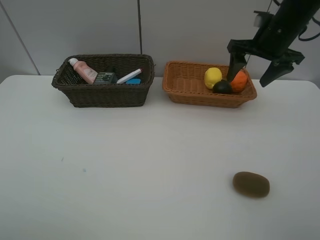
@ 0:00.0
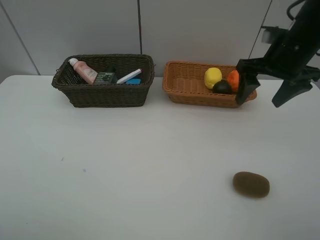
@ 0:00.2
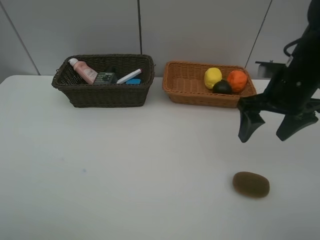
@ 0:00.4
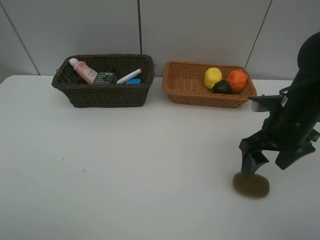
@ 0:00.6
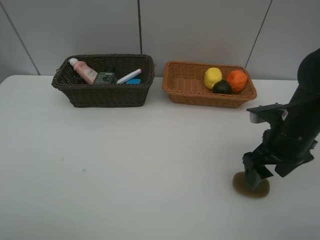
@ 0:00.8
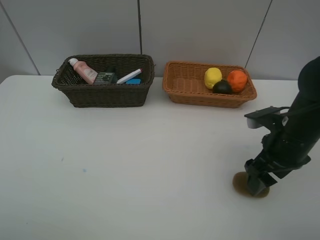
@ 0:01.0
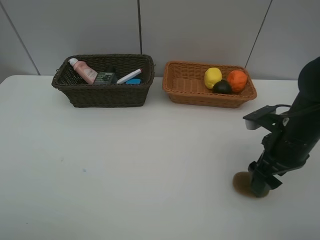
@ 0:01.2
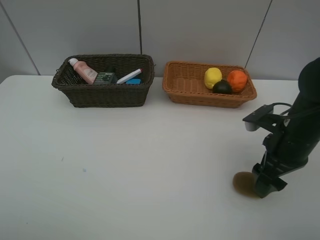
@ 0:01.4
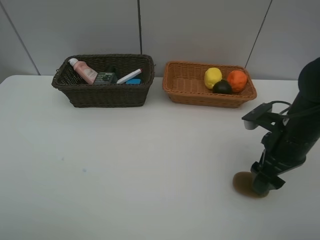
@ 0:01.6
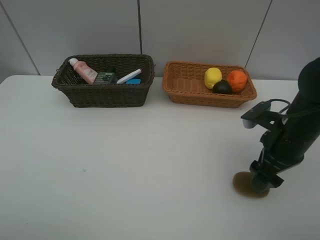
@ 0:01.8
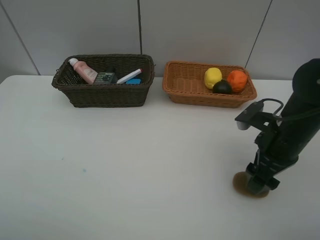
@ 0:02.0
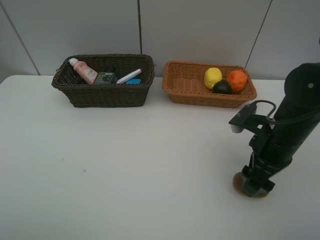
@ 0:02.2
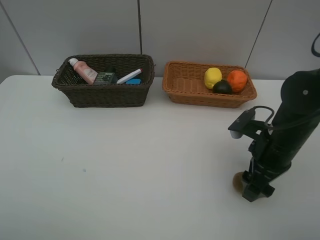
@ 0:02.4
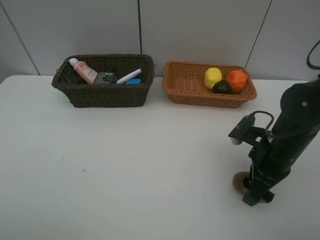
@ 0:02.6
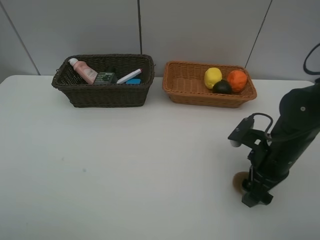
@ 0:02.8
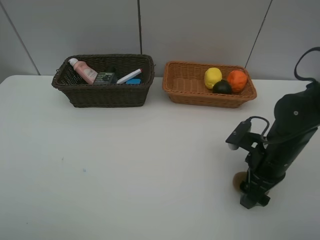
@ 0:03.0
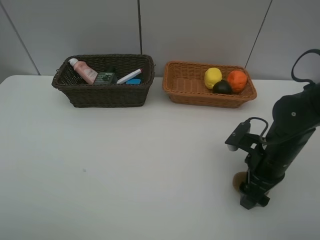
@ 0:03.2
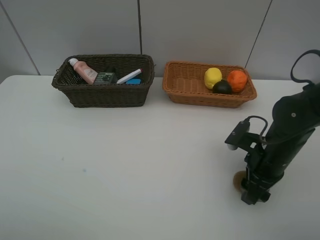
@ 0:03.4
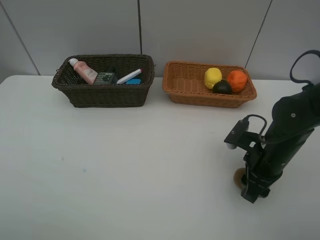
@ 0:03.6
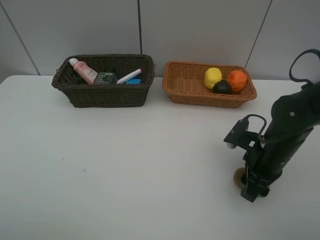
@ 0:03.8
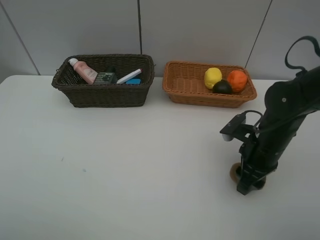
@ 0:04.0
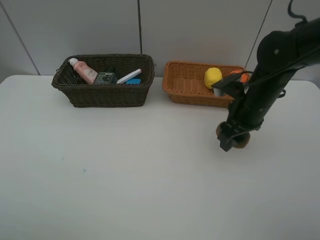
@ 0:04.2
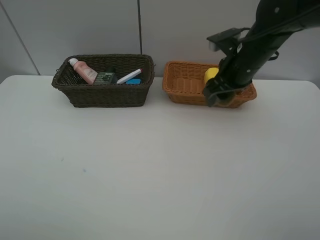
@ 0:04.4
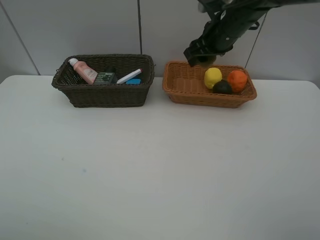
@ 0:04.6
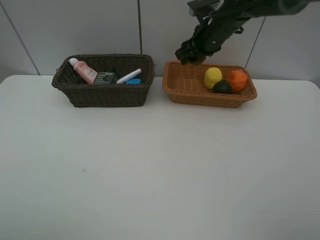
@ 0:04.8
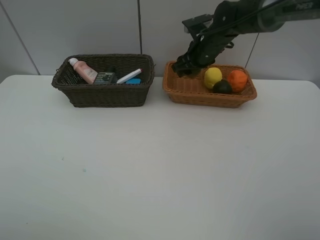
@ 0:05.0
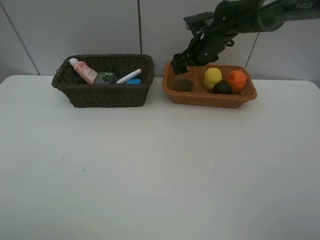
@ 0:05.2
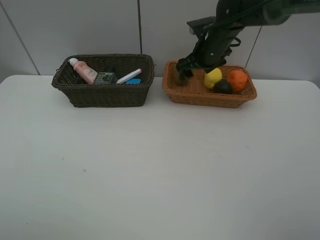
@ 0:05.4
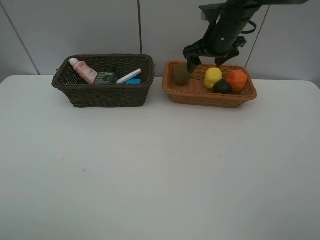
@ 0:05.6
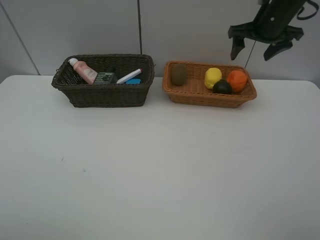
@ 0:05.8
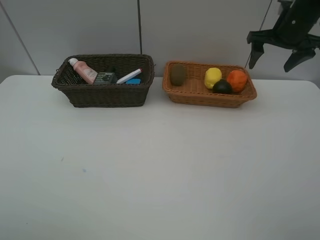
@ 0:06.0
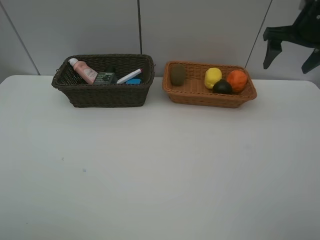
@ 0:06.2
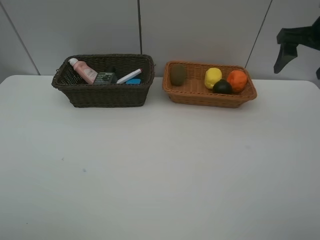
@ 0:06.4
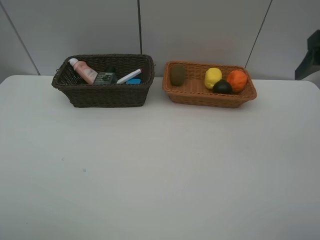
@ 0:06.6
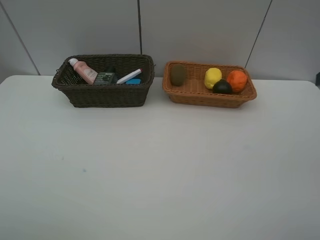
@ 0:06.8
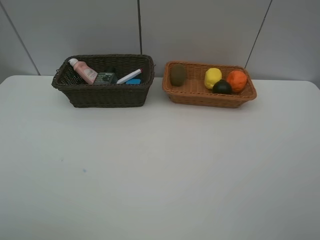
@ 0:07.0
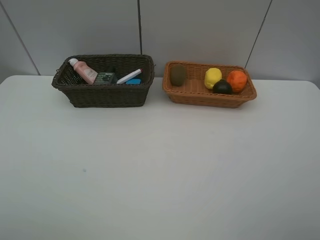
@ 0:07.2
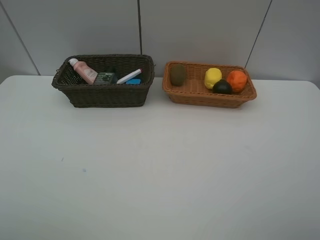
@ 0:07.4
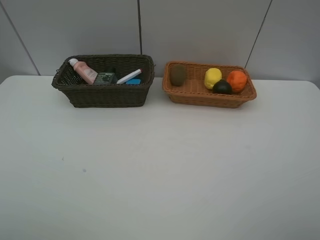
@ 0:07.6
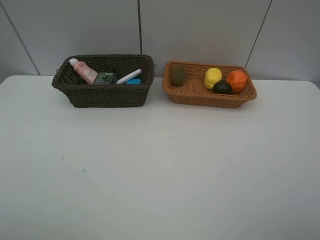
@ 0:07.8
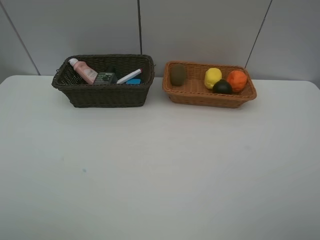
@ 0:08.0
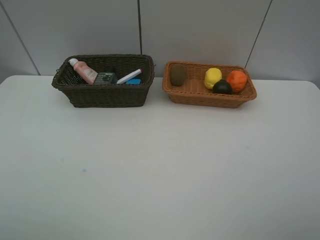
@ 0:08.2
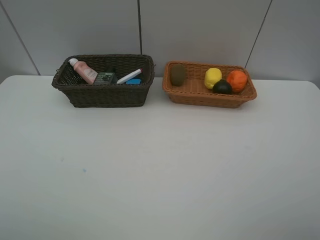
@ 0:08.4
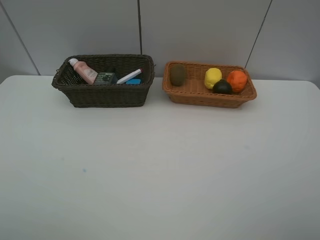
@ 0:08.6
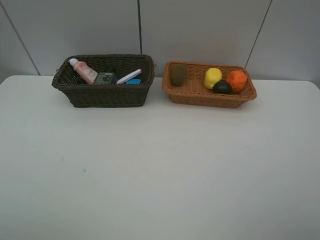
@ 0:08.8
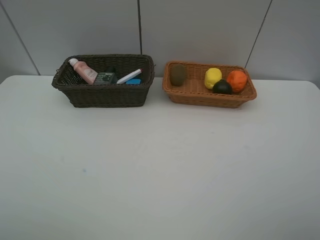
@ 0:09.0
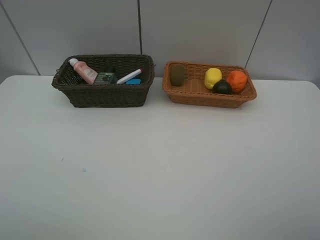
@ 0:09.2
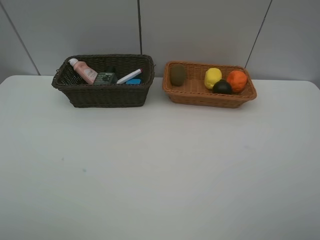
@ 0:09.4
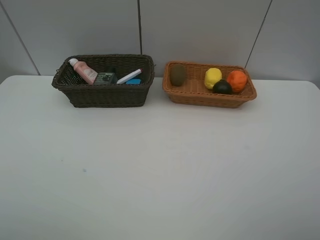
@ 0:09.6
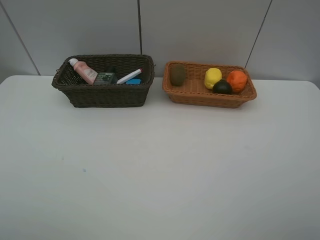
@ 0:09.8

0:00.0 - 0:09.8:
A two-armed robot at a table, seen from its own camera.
Task of the whole recording: Place multiple objects separately in different baskets.
Step, 0:00.0 - 0:04.0: Pick up kiwi with right gripper.
Step, 0:04.2 - 0:05.2: Place the kiwi in the light basket with right gripper.
0:00.0 - 0:01.4: The right gripper shifts approximately 20 cm backward and downward.
0:01.4 - 0:02.8: The grippers make only small movements.
0:02.8 - 0:04.2: The right gripper is displaced forward and upward by some 10 cm, and closes up.
0:04.2 - 0:05.6: The right gripper travels forward and upward by roughly 15 cm, and opens.
0:05.6 - 0:07.0: The right gripper travels backward and to the right by some 40 cm.
0:08.4 - 0:09.8: Both grippers stay about where they are.

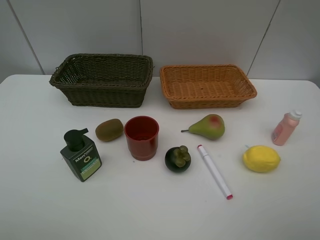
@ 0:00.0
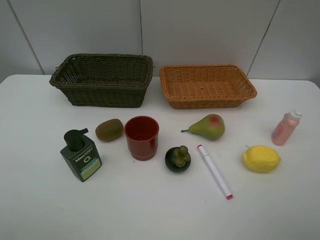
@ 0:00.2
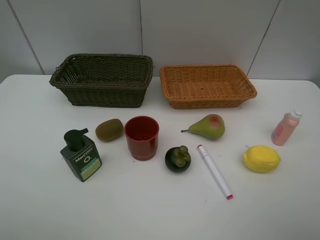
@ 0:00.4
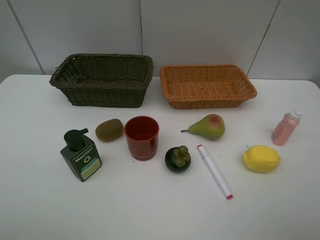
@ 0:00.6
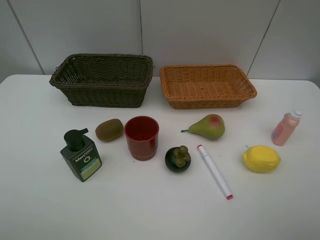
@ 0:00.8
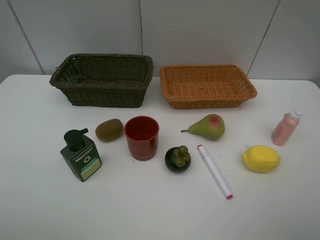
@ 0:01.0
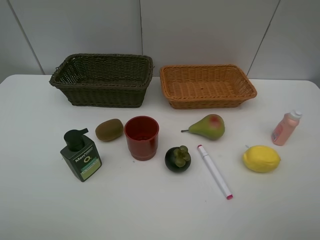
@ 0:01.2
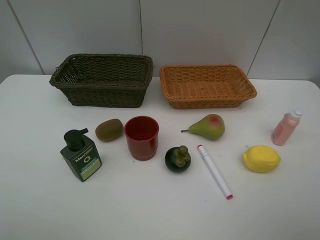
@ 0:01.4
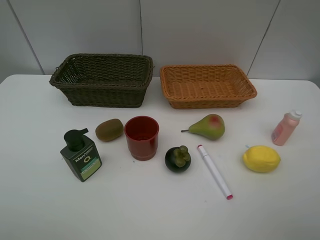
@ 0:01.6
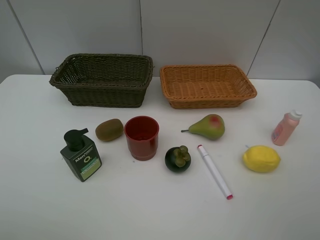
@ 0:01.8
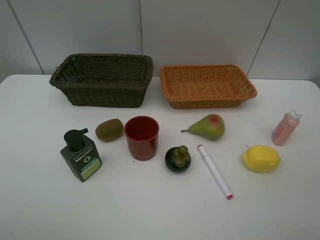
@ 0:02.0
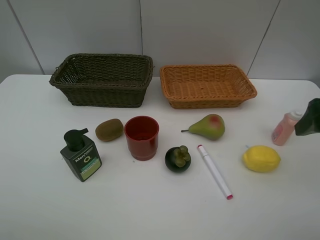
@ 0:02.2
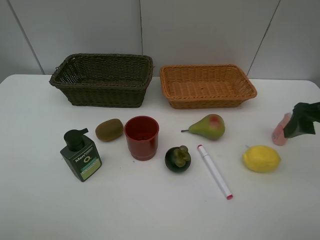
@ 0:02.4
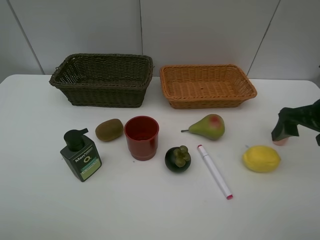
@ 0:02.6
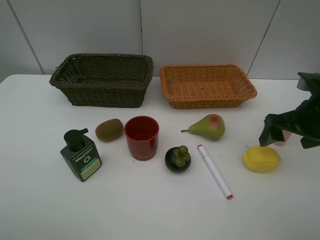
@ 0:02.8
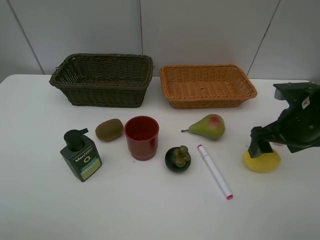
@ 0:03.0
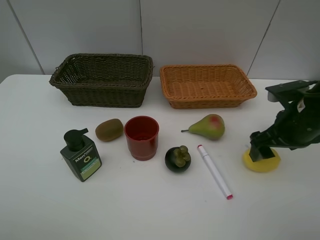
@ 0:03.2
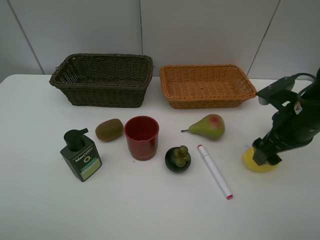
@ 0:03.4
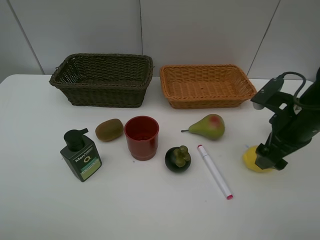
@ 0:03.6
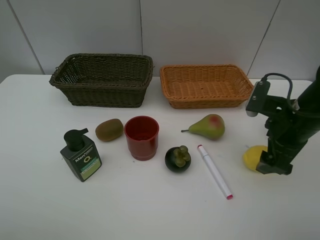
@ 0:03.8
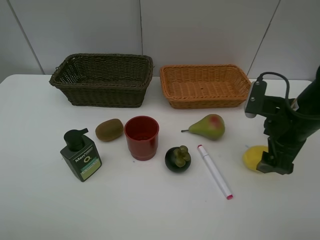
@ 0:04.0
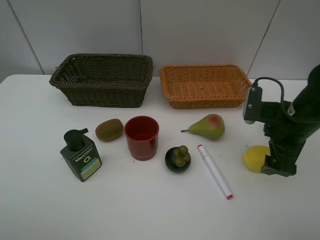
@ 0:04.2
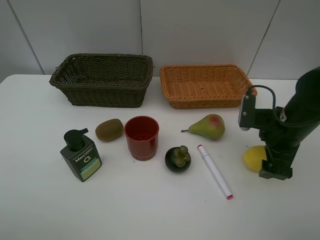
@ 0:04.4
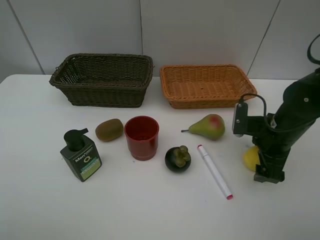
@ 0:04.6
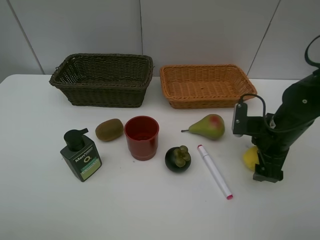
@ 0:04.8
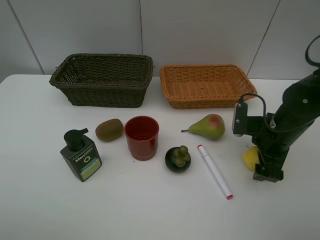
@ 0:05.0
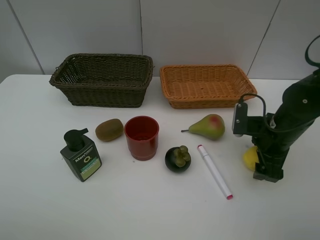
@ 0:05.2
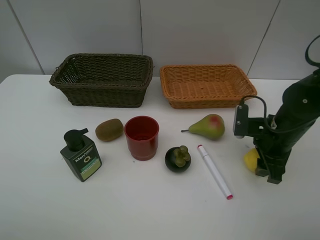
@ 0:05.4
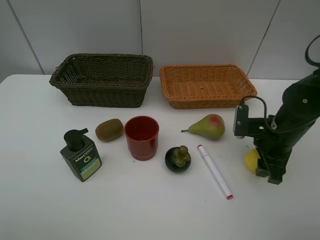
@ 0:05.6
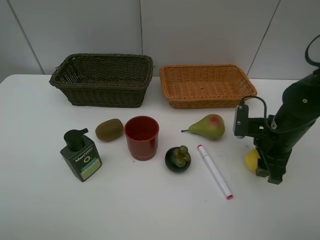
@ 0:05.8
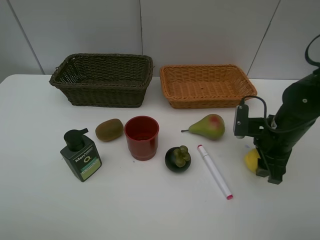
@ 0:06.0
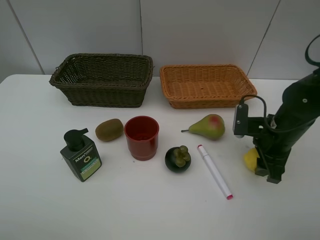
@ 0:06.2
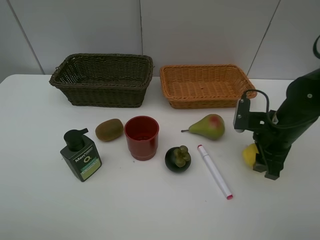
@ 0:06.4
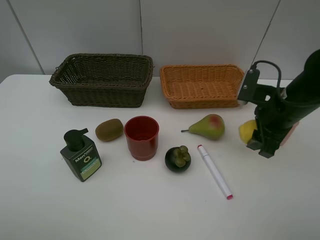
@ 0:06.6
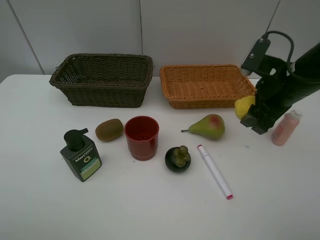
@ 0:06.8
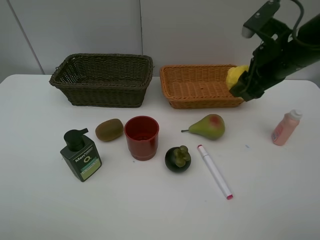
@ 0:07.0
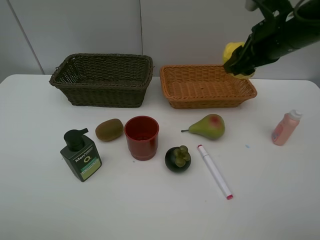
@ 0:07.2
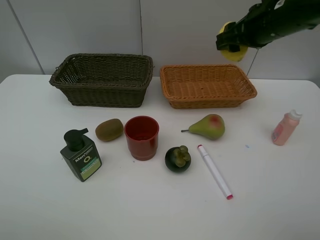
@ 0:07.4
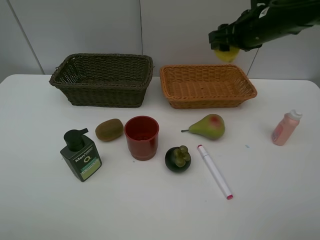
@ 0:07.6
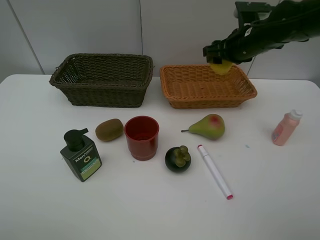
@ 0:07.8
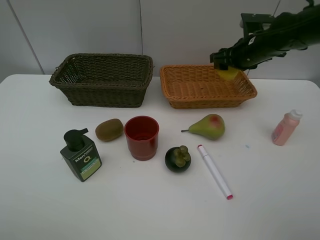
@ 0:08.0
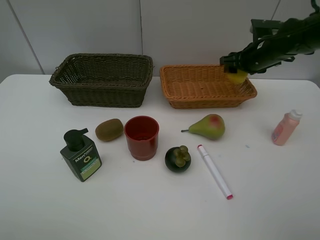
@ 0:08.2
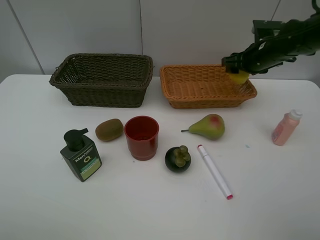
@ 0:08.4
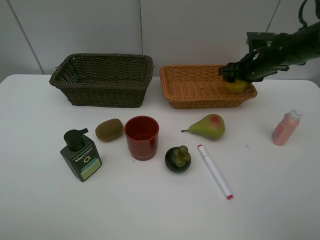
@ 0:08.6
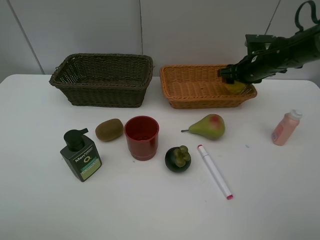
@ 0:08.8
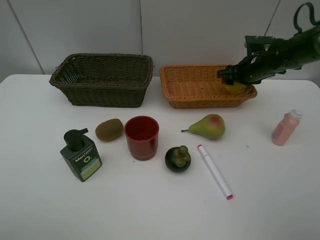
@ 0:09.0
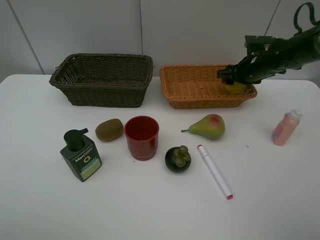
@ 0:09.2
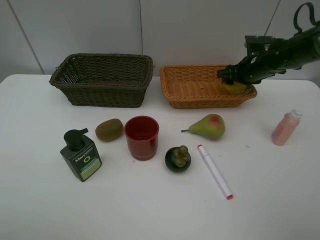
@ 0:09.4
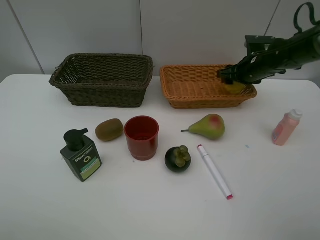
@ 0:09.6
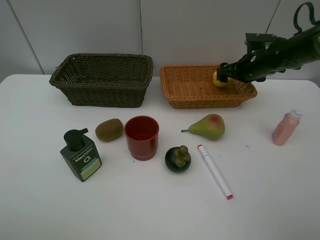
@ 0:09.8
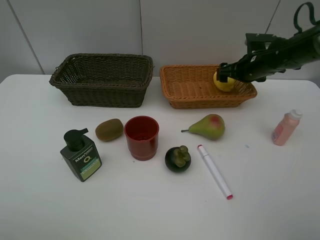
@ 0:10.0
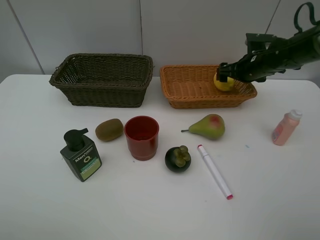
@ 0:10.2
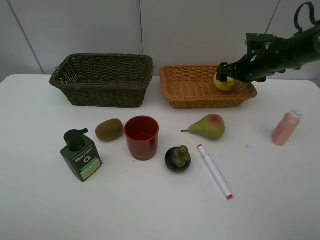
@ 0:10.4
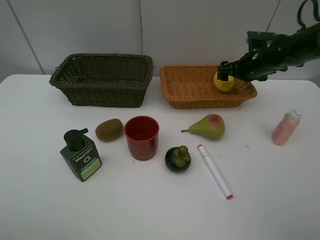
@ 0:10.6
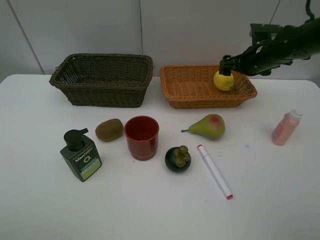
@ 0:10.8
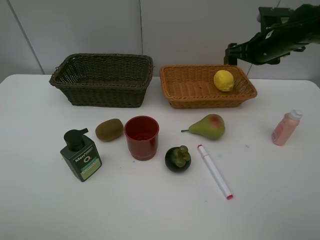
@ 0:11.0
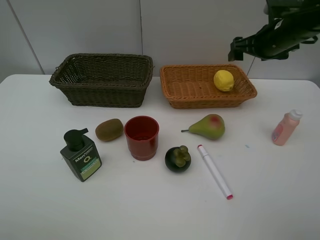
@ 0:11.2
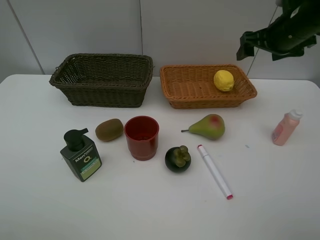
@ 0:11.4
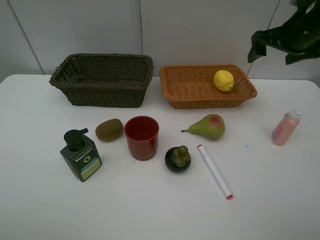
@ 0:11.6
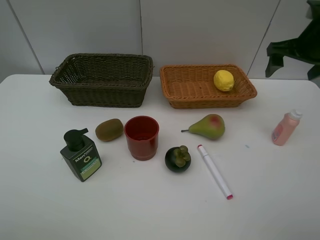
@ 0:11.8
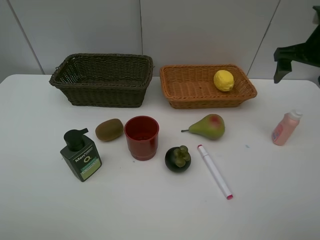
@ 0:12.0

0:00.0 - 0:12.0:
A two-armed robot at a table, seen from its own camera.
Task of the whole recording: Place multiple objects separately in different baskets.
Step, 0:00.0 - 0:06.4: Pick up the lemon with right gripper.
Step, 0:06.6 - 0:10.8: Place the lemon in the light basket with right gripper.
0:01.6 - 0:03.0: The right gripper goes some 20 cm forward and downward.
0:04.4 - 0:06.0: The right gripper closes its fingers.
0:06.0 - 0:07.6: The right gripper heads upward and forward, covering approximately 20 cm.
0:07.6 - 0:09.0: The right gripper shifts about 15 cm downward, to the right and forward.
0:09.0 - 0:10.4: The right gripper opens.
0:10.4 - 0:12.0: The right gripper travels upward, backward and to the right by some 15 cm.
